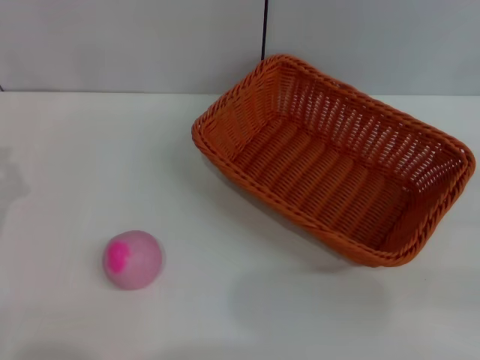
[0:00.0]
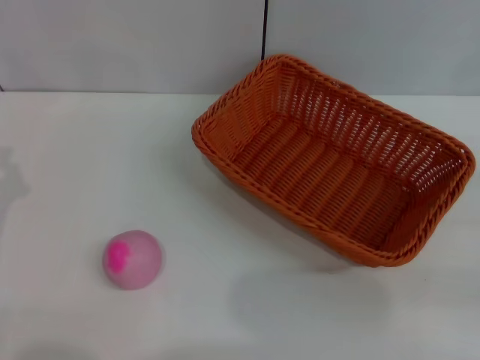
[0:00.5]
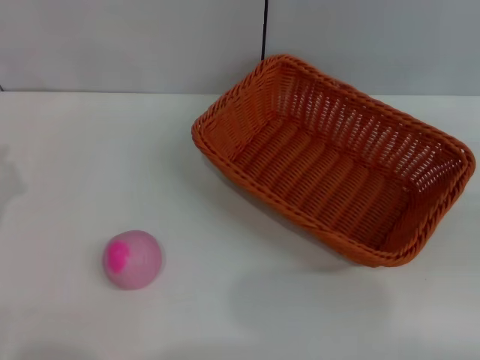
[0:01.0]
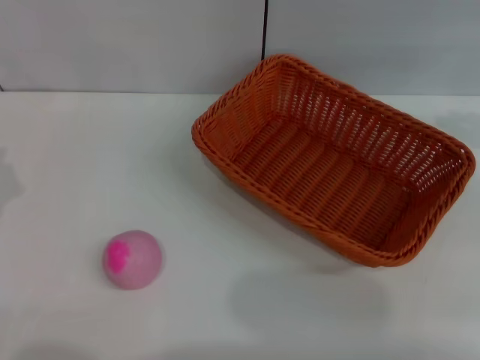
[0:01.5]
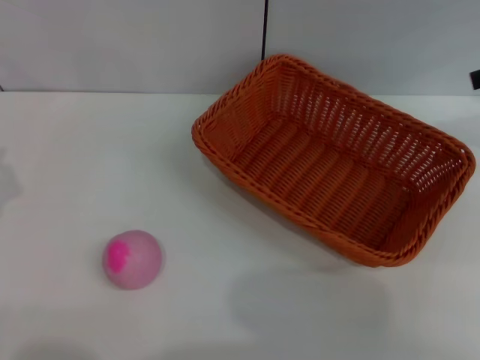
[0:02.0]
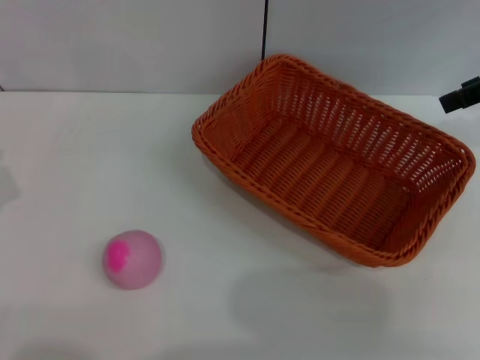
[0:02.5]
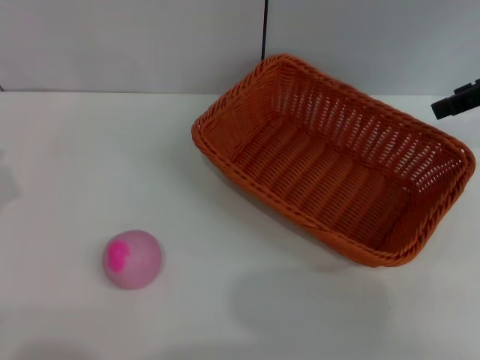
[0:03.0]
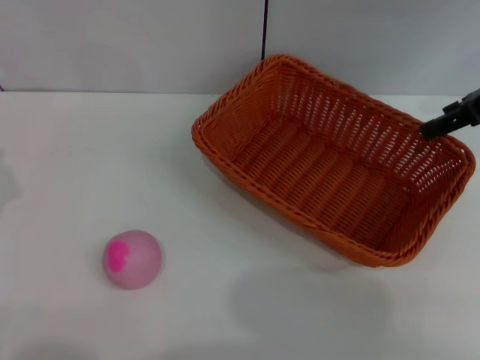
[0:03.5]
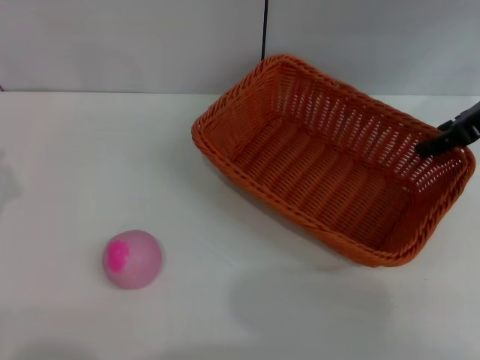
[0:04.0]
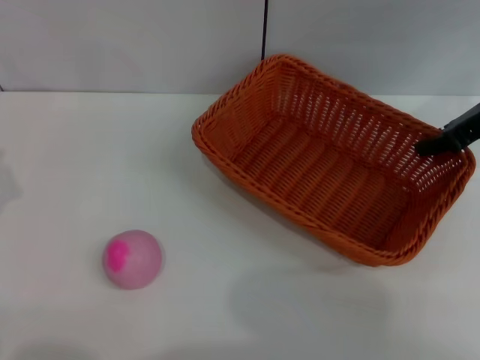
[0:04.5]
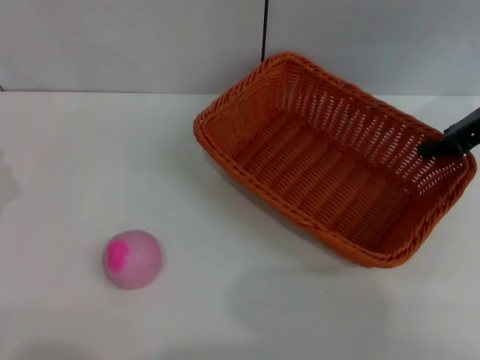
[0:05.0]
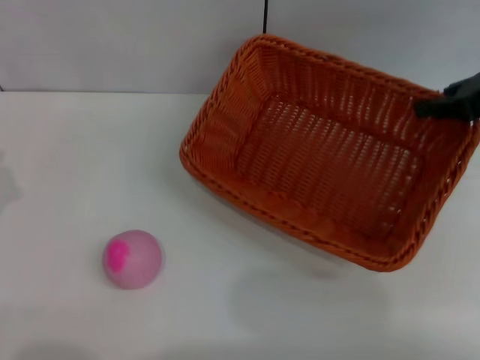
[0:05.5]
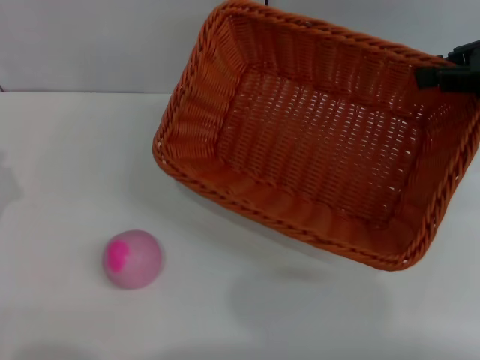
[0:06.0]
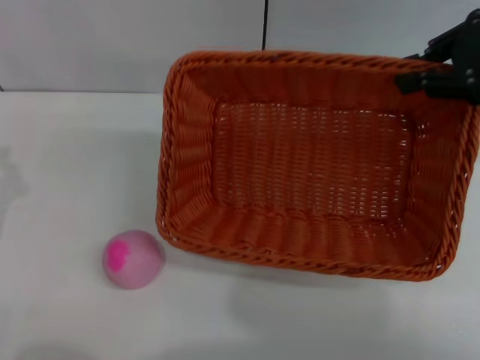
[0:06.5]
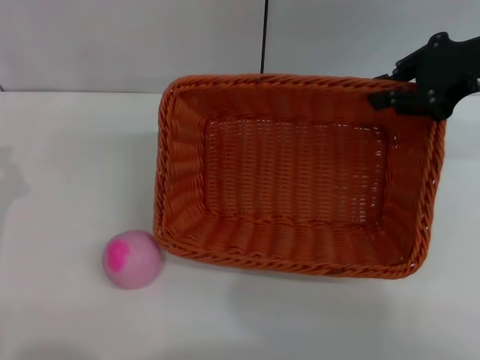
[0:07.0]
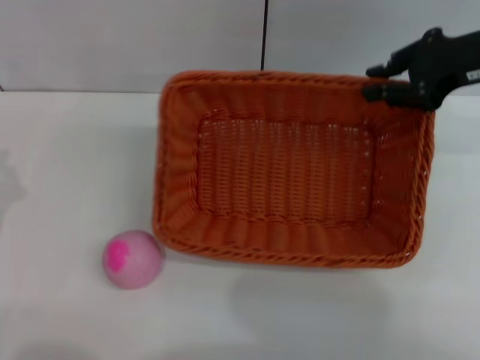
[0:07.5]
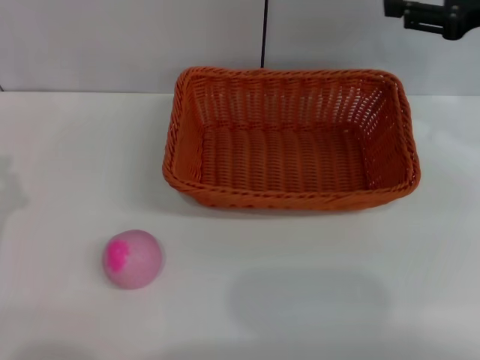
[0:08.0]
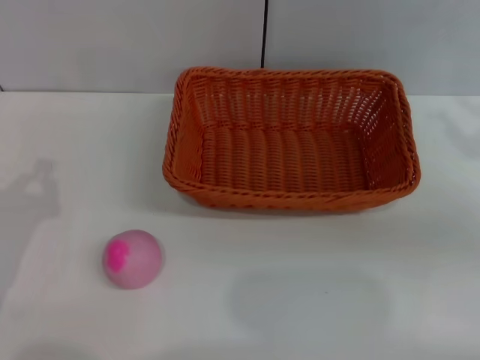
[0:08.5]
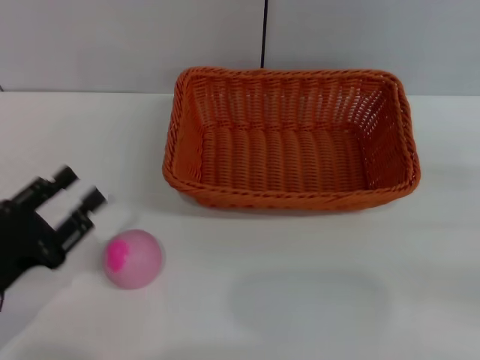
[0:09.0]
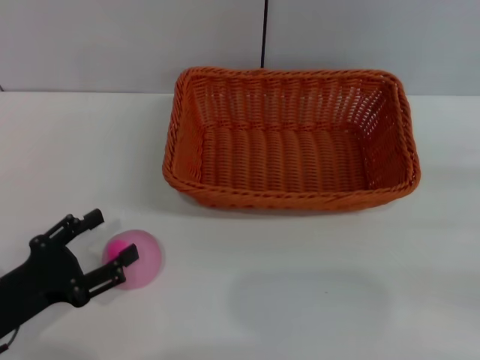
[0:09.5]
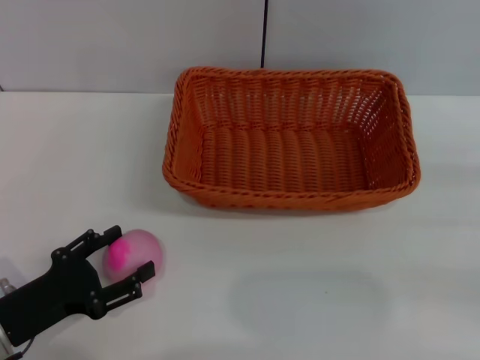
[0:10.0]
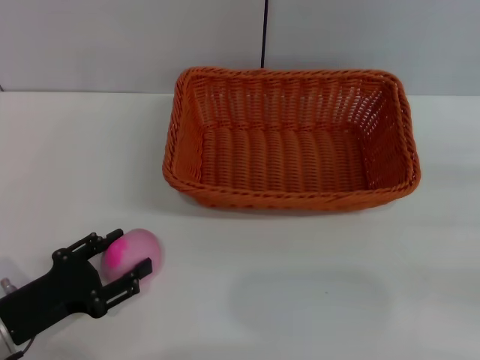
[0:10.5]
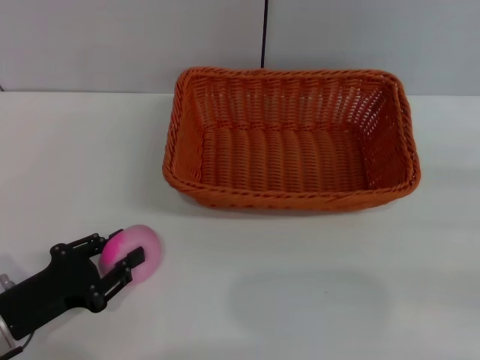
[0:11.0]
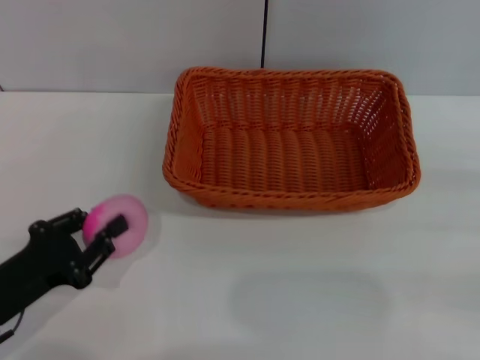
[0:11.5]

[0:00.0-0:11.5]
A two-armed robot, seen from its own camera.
Step, 0:00.0 to 0:06.0: Pick up the light basket with the right gripper.
Step, 0:06.5 to 0:07.5: Place the light basket in the center of view with the right gripper.
0:02.0 to 0:04.0: The right gripper heads downward and to the left, covering about 10 cm, and opens up.
0:04.0 to 0:06.0: The right gripper travels upward and backward by about 10 cm, and closes its fingers.
0:06.0 to 0:07.5: The right gripper shifts by about 5 cm.
0:07.5 to 0:09.5: The left gripper moves approximately 5 cm, and opens, while the right gripper goes some 25 cm backward, to the right and downward, and opens.
0:09.5 to 0:11.5: The left gripper closes.

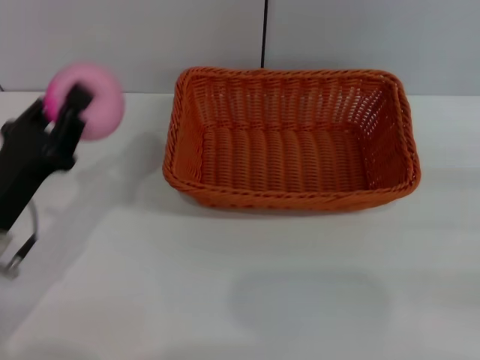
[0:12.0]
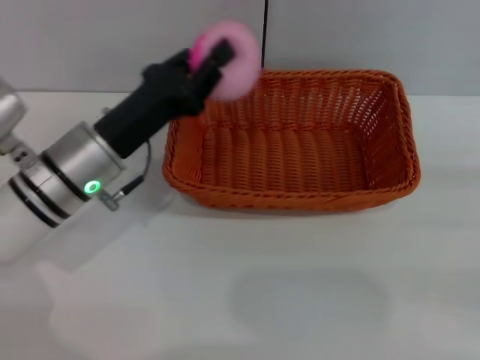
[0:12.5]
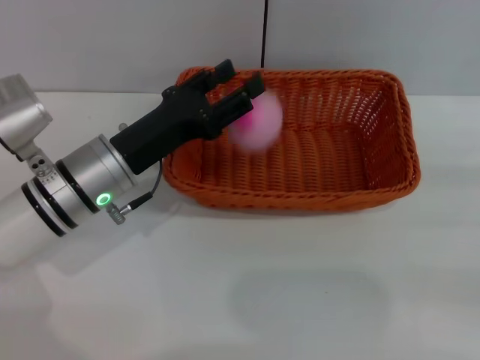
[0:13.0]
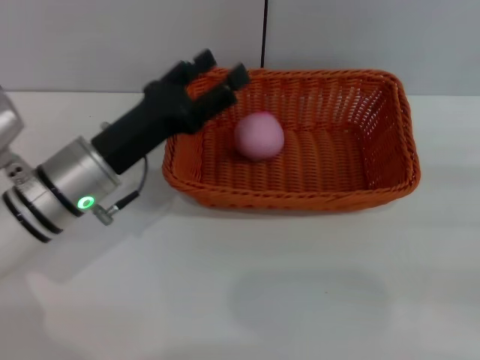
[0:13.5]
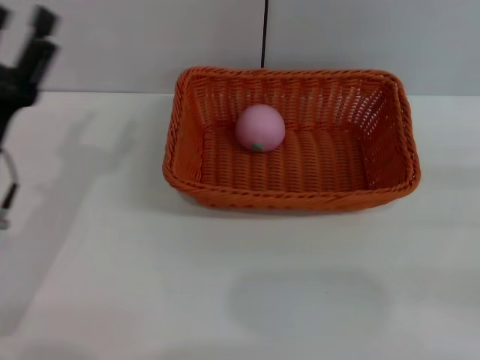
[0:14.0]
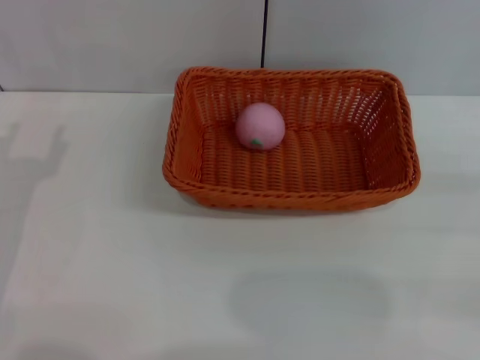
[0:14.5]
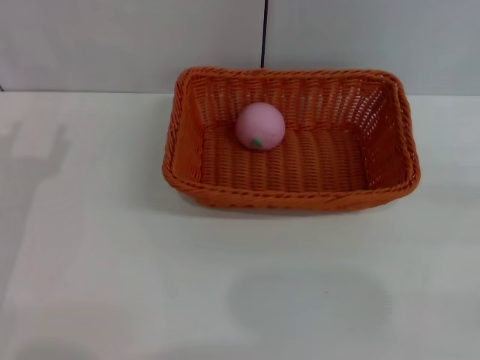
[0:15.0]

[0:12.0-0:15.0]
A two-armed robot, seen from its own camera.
Step, 0:12.5 to 0:13.5: Place the peach into the basket with the left gripper.
0:12.0 to 0:13.5: The left gripper goes some 10 cm to the right and forward, and opens its fingers.
0:13.5 to 0:15.0: The left gripper moves to the left and backward, approximately 15 cm.
